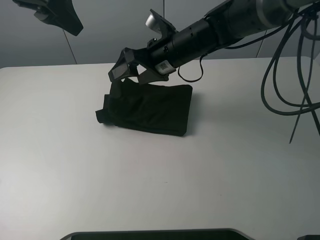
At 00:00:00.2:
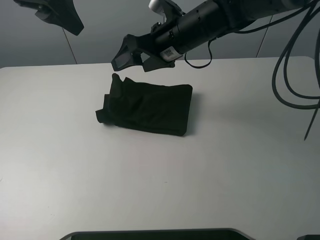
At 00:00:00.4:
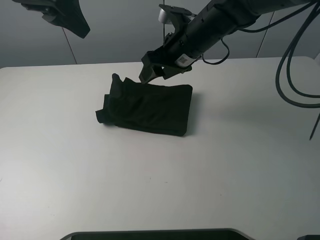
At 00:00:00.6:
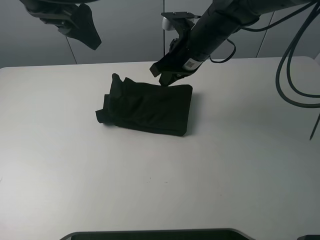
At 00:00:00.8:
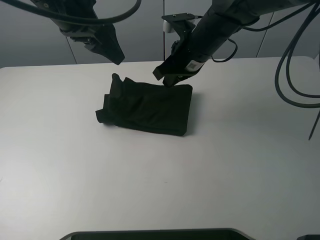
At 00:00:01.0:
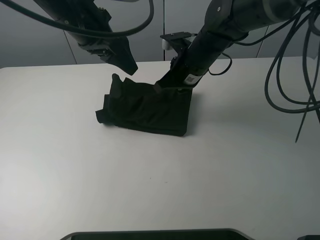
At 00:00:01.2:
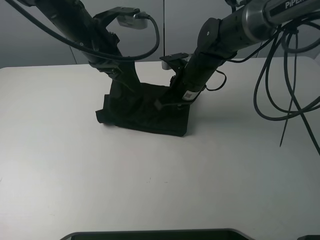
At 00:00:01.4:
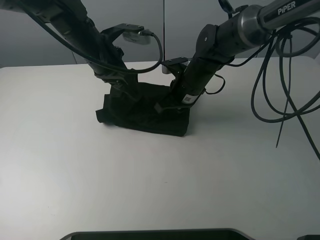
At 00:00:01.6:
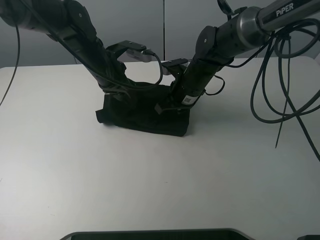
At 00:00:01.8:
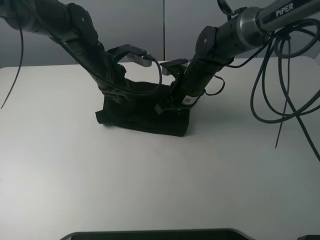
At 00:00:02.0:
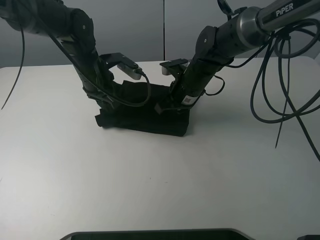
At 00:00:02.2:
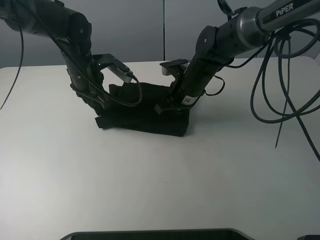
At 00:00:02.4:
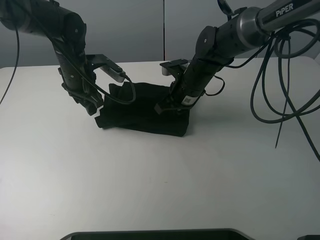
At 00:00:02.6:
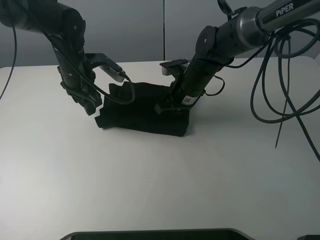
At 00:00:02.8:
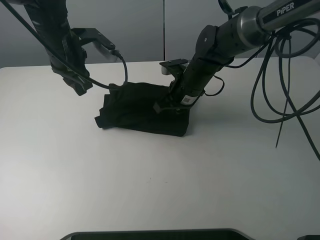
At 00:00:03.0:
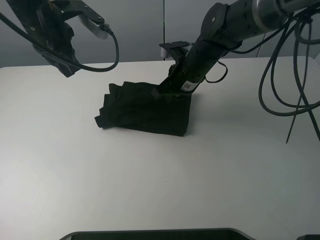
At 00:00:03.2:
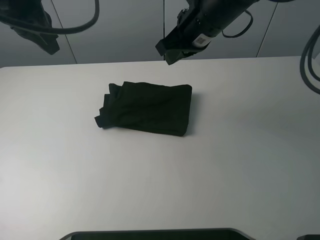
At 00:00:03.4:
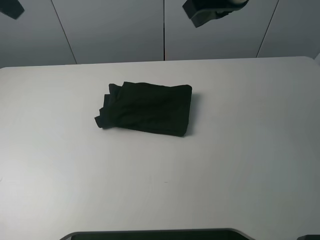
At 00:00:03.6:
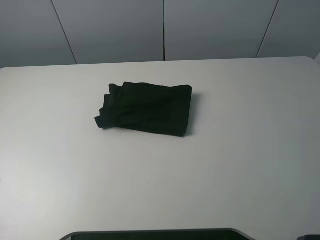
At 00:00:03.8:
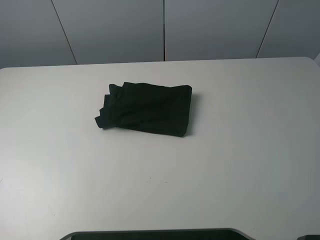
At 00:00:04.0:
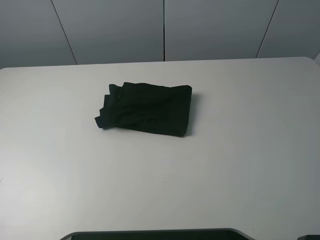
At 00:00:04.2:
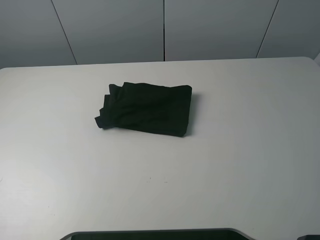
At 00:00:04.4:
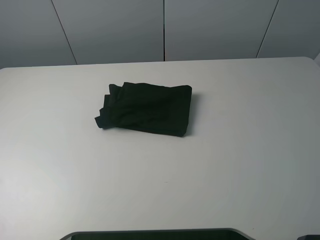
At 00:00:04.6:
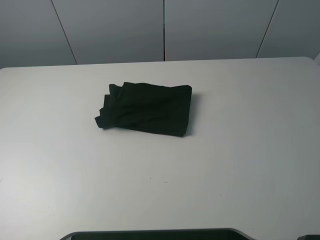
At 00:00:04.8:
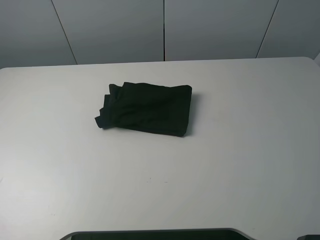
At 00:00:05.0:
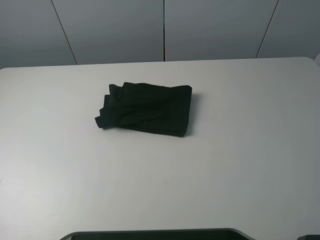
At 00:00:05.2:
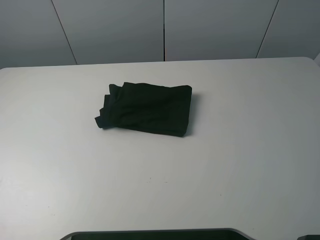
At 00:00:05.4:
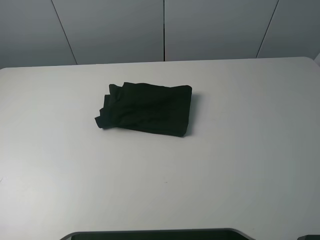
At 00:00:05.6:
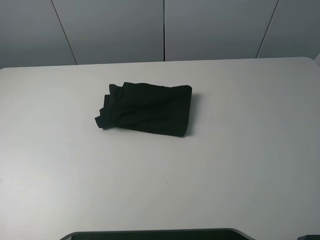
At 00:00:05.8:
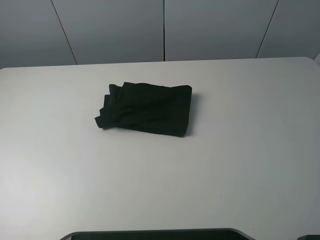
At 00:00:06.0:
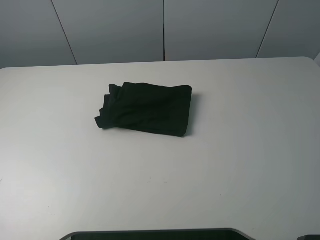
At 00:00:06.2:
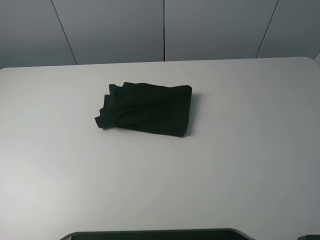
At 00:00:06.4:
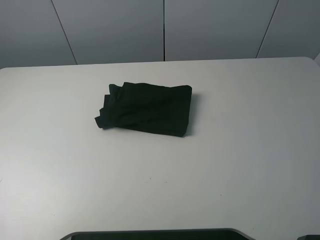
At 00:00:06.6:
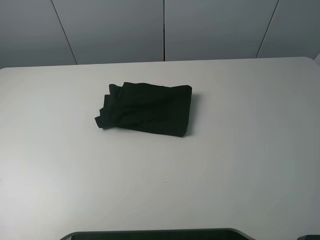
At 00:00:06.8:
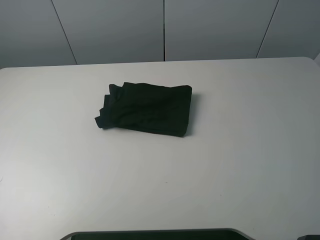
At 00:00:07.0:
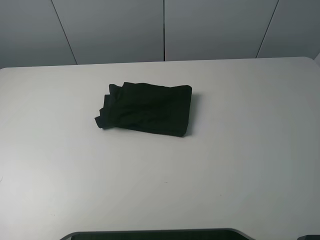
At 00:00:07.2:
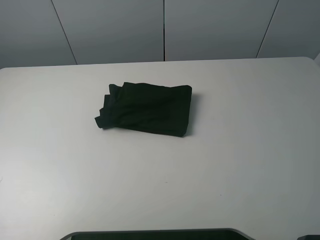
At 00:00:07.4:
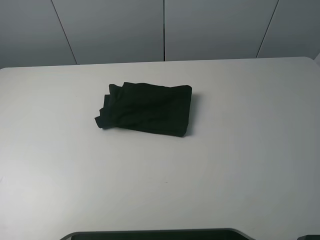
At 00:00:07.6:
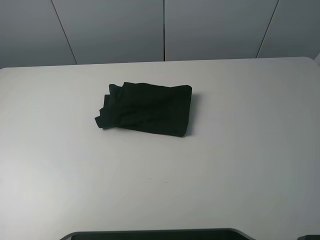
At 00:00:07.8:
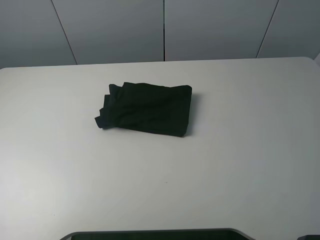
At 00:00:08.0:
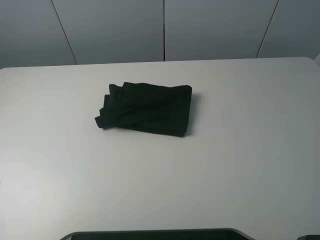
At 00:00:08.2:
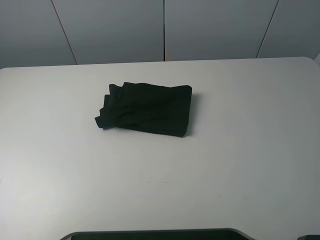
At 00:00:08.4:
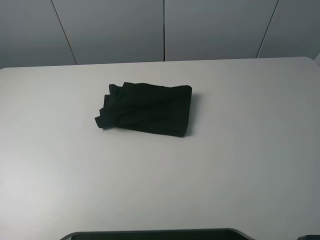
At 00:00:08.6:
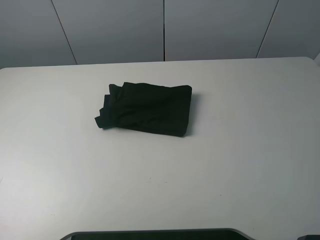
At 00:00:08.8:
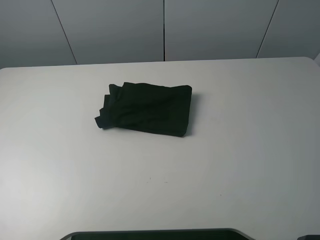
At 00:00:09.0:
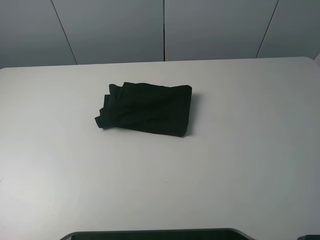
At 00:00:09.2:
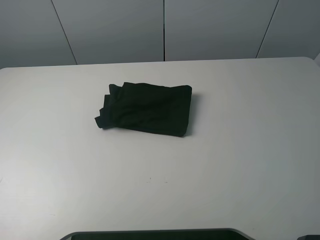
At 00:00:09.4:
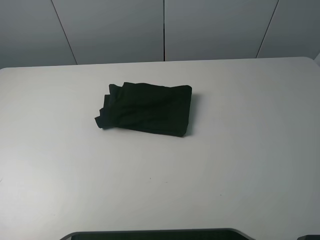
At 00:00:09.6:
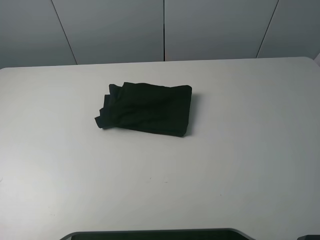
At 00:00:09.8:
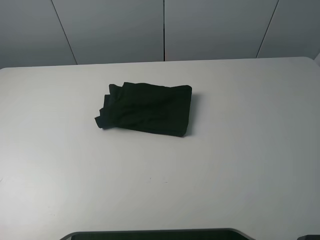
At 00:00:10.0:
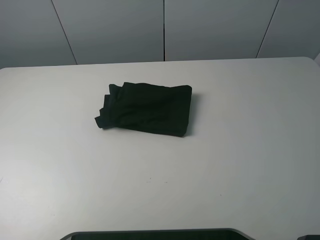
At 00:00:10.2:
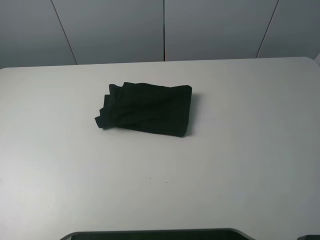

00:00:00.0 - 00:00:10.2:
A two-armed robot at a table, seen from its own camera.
Task of the whole recording: fold the clothes on the table.
00:00:00.0 - 00:00:01.4: The right gripper heads downward, covering some 10 cm, and closes up, while the left gripper travels downward by roughly 15 cm.
00:00:01.4 - 00:00:03.0: The left gripper is displaced upward and to the left by some 10 cm, and closes its fingers. Meanwhile the right gripper moves upward, approximately 5 cm.
00:00:03.0 - 00:00:04.4: The right gripper travels backward, upward and to the right by roughly 60 cm, and opens up. Meanwhile the left gripper is displaced backward, upward and to the left by approximately 50 cm, and opens up.

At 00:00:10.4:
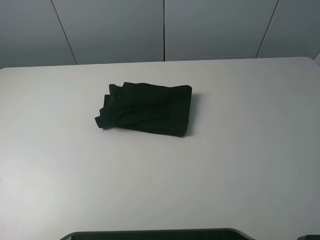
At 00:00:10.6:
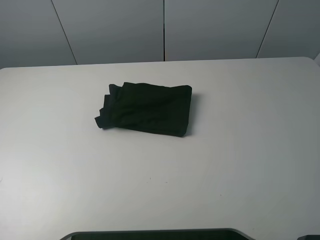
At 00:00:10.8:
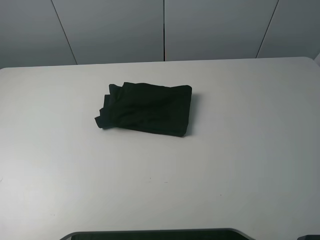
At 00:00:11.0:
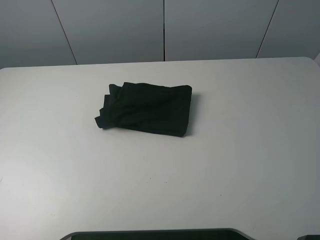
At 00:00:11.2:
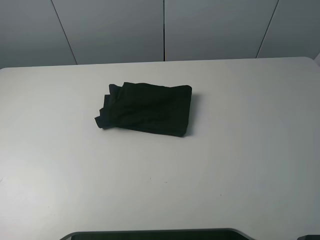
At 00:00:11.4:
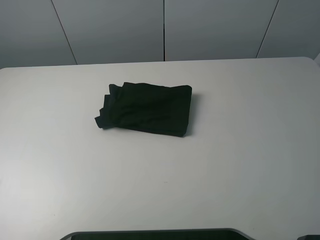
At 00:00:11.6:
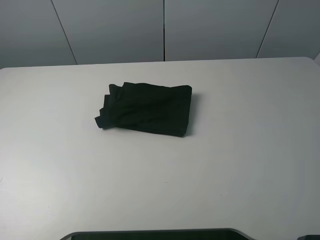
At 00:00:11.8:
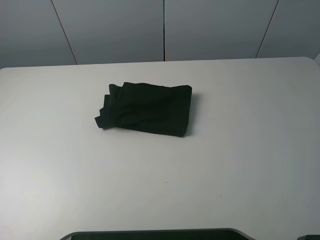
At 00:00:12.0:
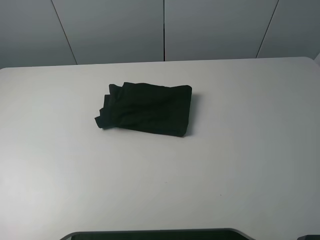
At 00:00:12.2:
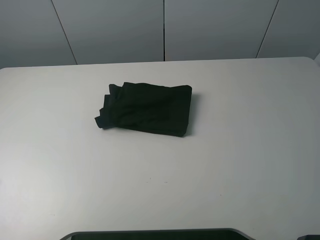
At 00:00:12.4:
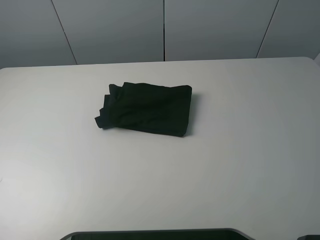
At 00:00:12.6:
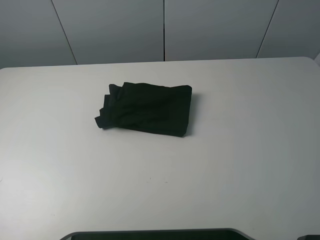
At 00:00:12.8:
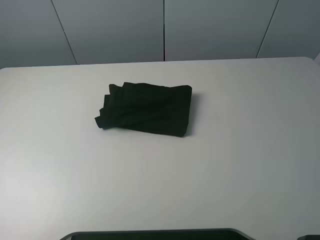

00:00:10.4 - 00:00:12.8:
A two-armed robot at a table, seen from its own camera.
Task of the whole recording: fold the clothes on the table.
00:00:10.4 - 00:00:12.8: Neither gripper changes place.
